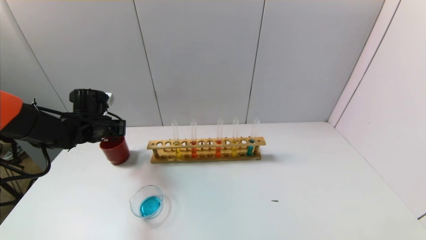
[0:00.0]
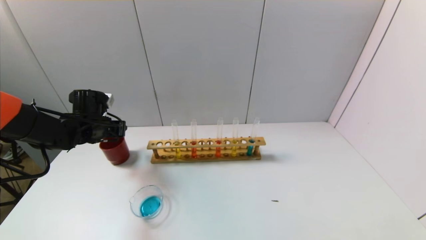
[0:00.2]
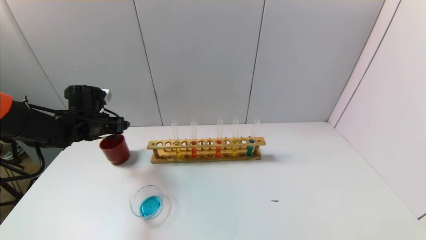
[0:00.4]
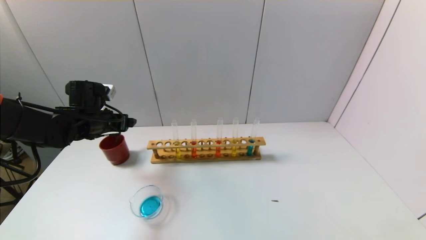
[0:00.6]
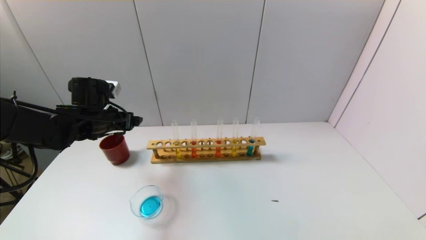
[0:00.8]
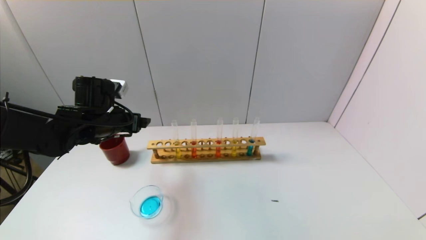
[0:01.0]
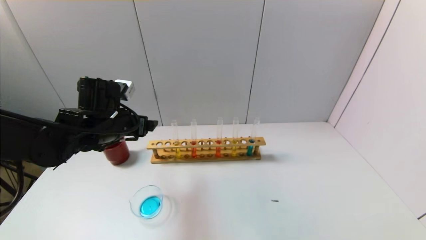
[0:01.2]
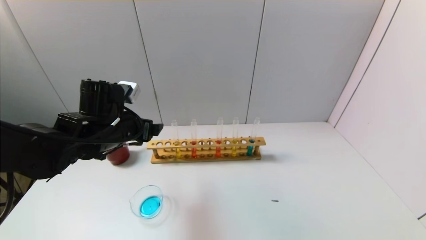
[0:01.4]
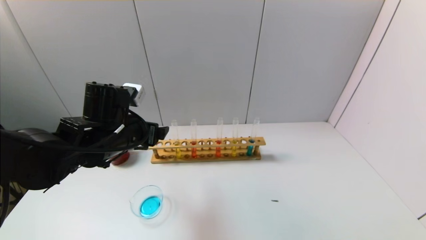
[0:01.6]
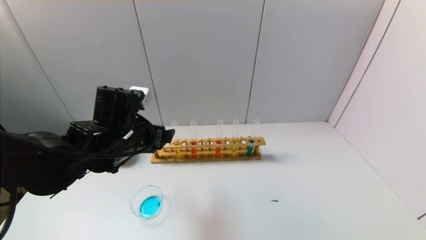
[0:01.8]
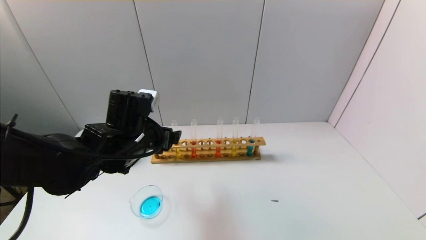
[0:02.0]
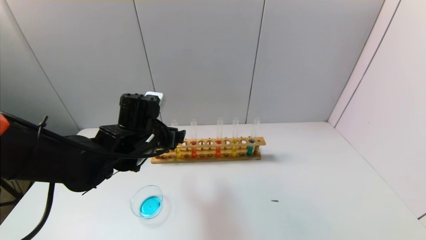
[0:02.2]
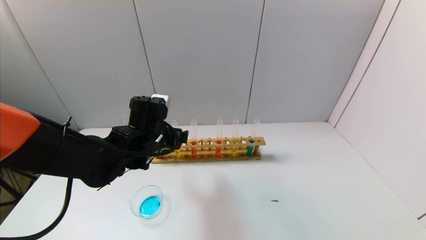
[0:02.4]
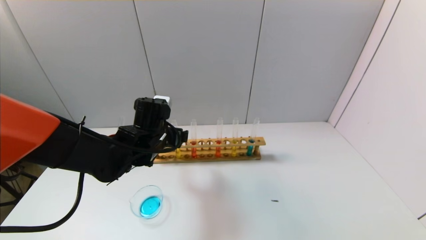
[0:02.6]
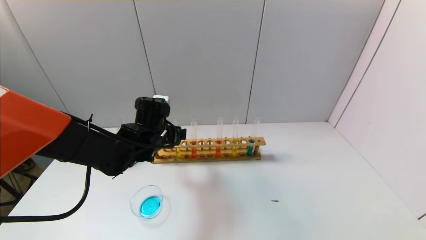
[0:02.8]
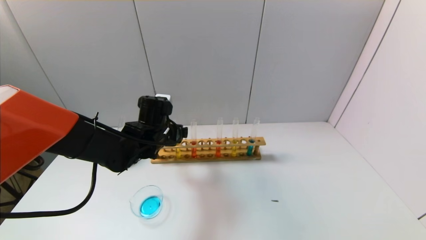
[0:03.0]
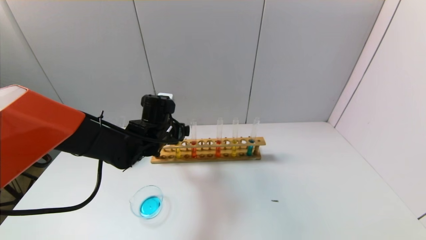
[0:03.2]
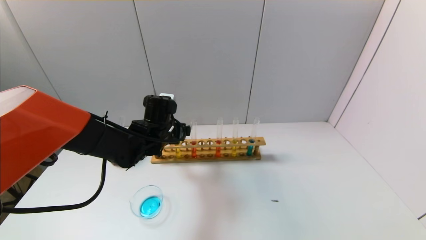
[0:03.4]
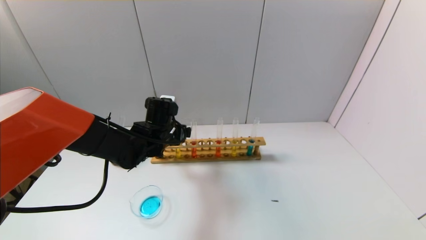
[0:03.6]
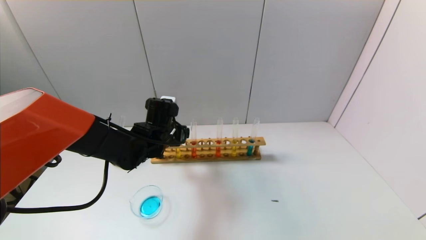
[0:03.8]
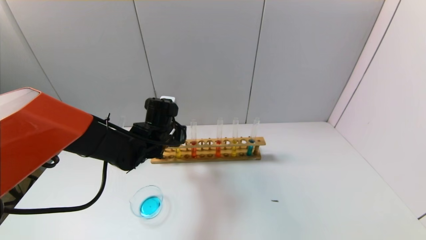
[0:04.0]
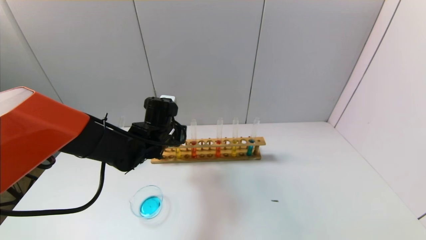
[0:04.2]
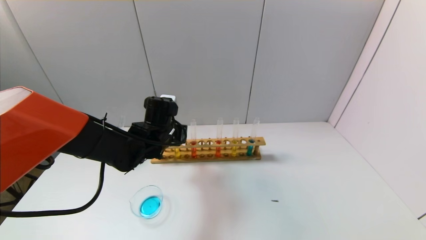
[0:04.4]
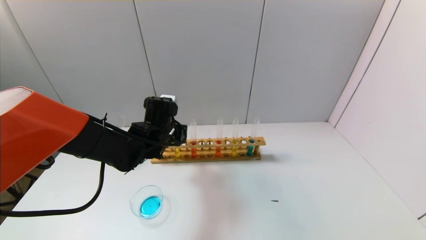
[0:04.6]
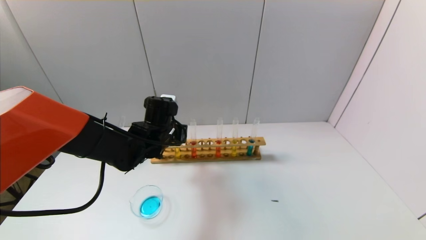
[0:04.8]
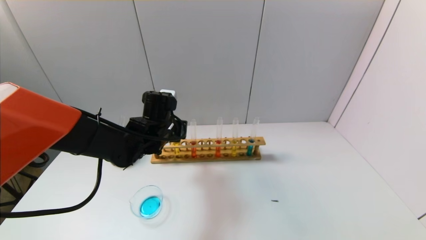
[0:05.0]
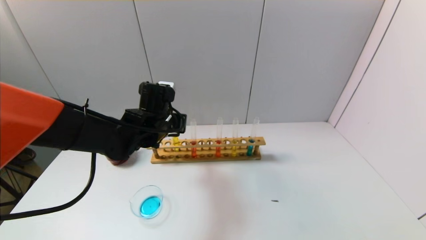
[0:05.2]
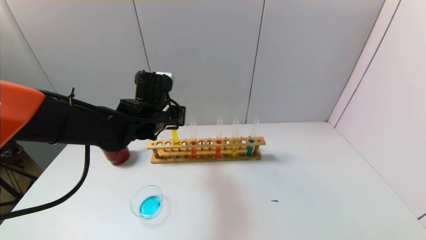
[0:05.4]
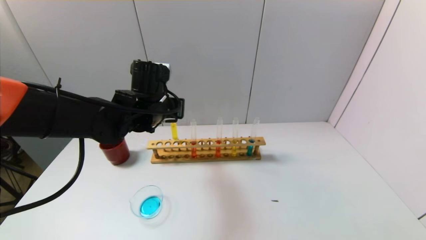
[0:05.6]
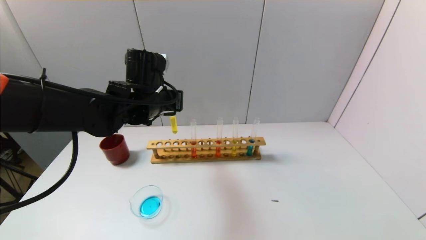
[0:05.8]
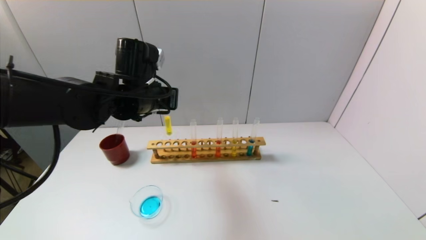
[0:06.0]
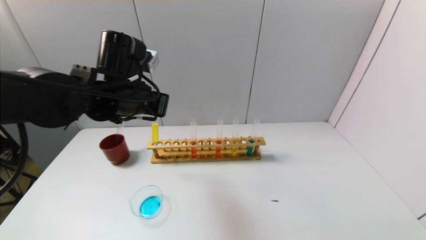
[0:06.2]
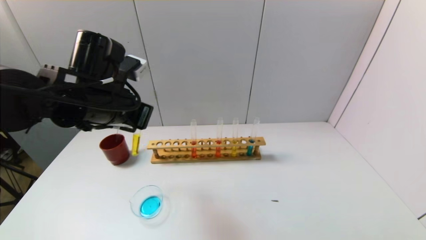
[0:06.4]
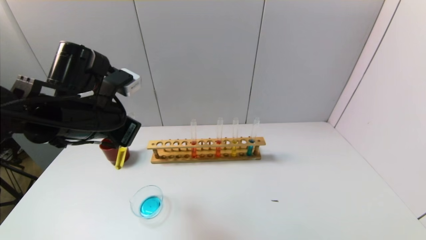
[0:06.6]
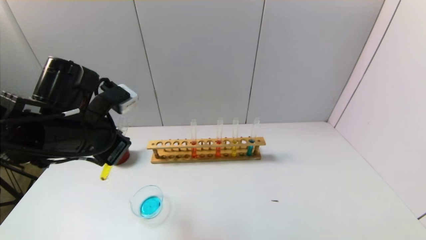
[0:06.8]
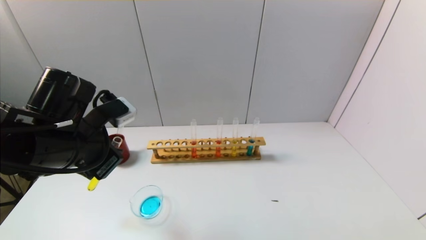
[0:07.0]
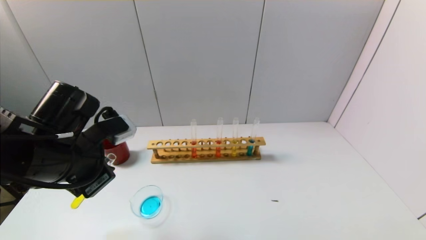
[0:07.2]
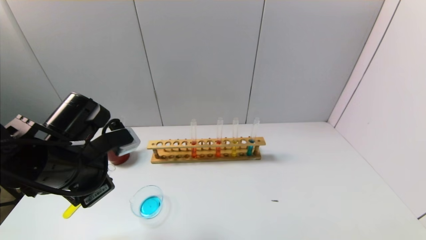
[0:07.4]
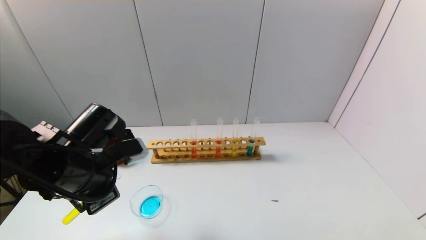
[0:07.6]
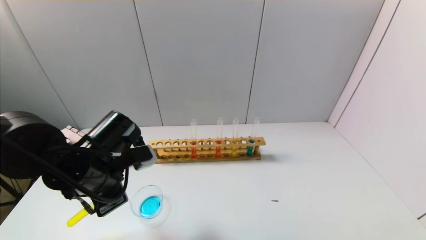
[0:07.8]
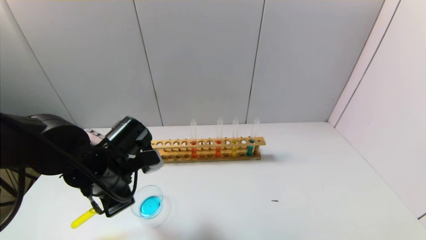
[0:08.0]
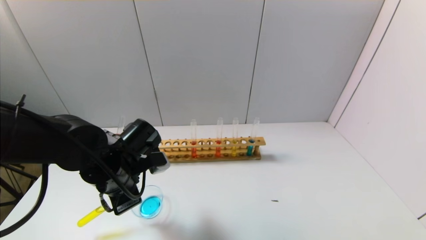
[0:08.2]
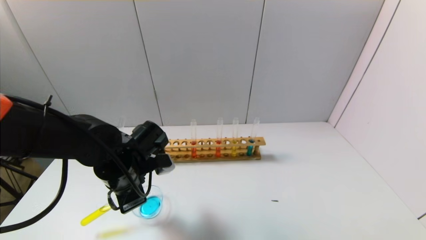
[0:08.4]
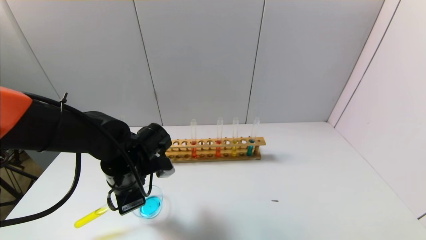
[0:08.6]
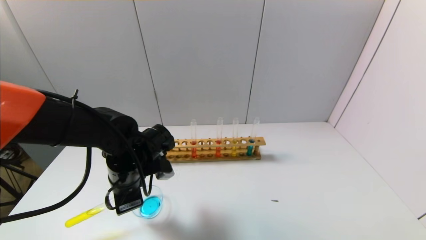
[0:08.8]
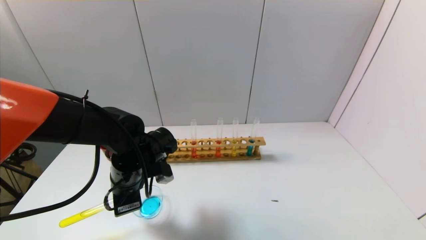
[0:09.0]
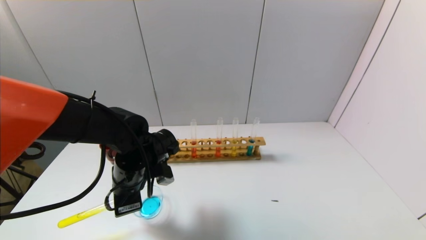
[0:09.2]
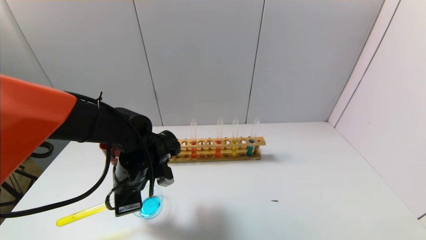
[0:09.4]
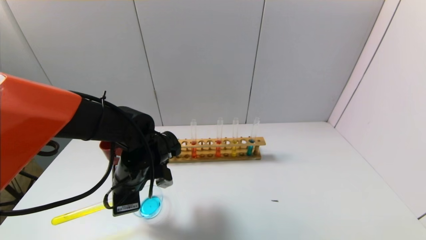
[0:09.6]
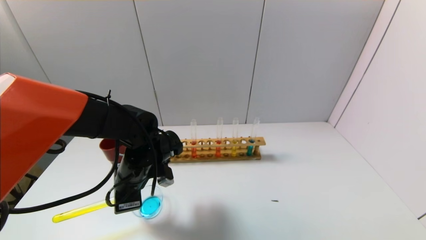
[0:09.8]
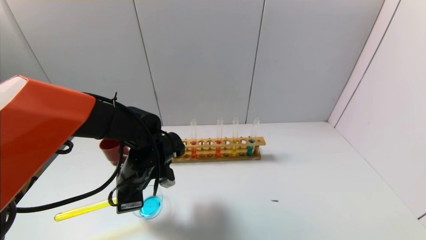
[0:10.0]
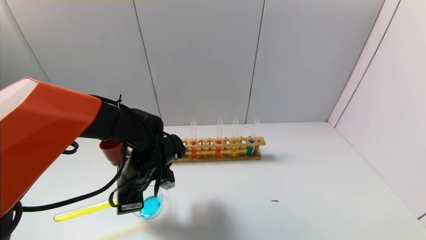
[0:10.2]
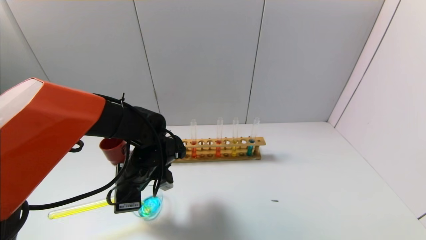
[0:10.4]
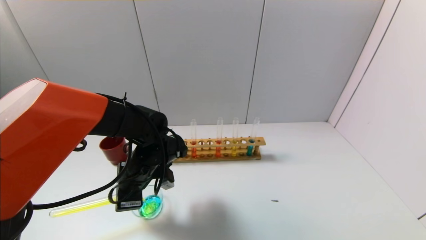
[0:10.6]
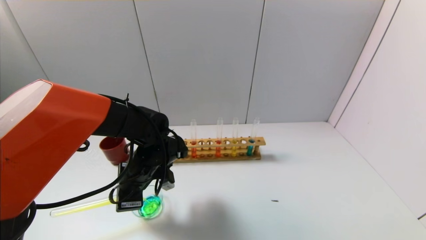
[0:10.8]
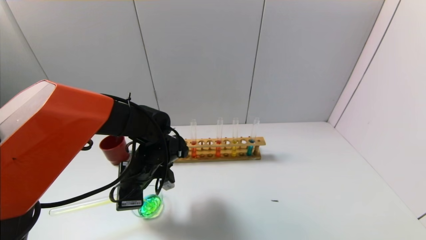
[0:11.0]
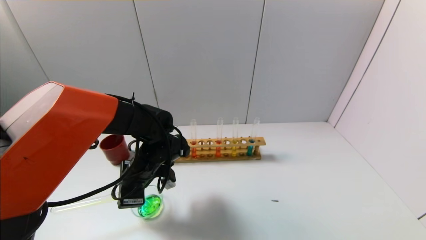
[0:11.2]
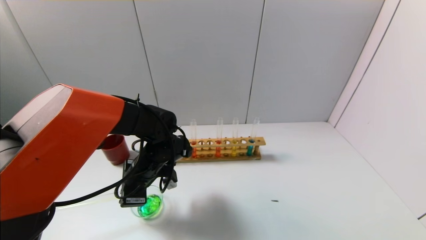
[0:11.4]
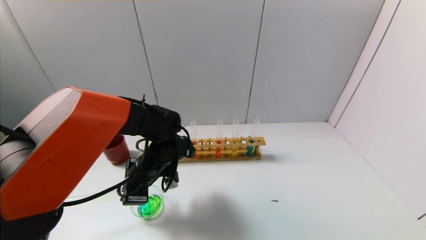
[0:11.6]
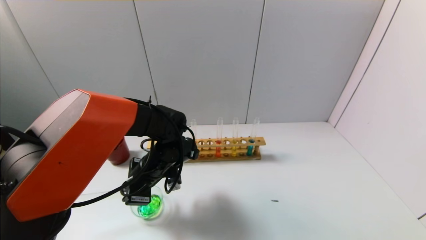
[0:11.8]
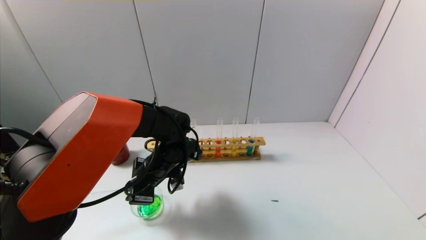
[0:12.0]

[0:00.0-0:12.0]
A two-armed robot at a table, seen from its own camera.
Task of the whole recording: pick up the test tube with yellow pigment and the test tube with blue pigment by grippers and pour them into the beaker.
Step, 0:00.6 to 0:04.8: Grasp the yellow reagent with the left gripper.
0:00.0 to 0:01.6: The left gripper is displaced to the right, backward and upward by approximately 20 cm, and opens up.
0:01.6 to 0:03.0: The left gripper is displaced forward and downward by roughly 10 cm.
0:03.0 to 0:04.4: The left gripper closes.
0:04.4 to 0:06.0: The left gripper is displaced upward by about 10 cm.
0:06.0 to 0:07.6: The left gripper is displaced backward, to the left and downward by approximately 15 cm.
0:07.6 to 0:09.0: The left gripper moves downward and forward, about 10 cm.
0:09.0 to 0:10.4: The grippers make only small movements.

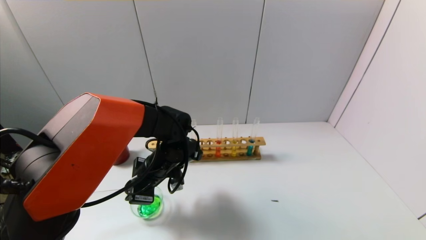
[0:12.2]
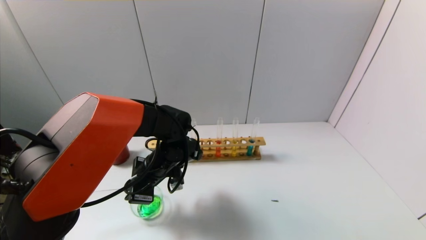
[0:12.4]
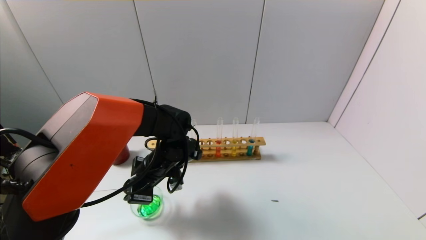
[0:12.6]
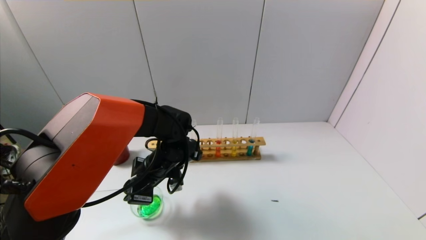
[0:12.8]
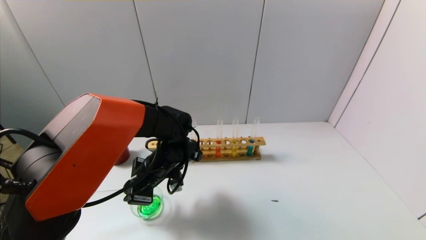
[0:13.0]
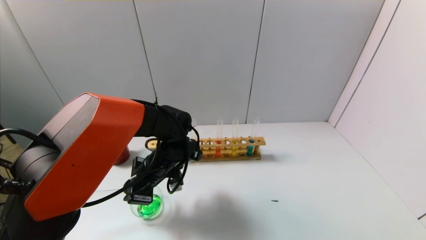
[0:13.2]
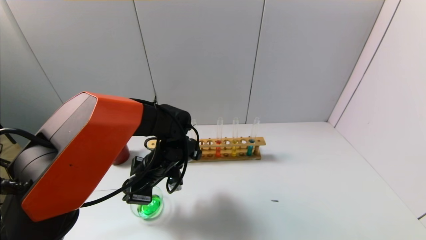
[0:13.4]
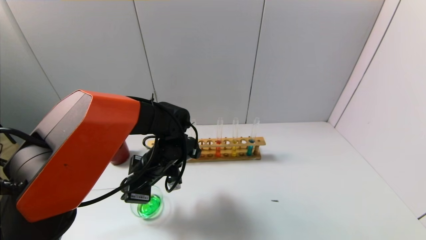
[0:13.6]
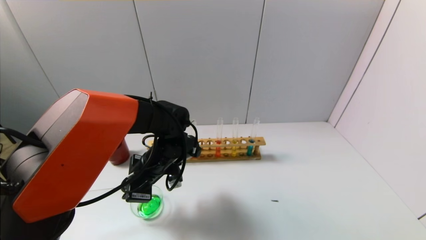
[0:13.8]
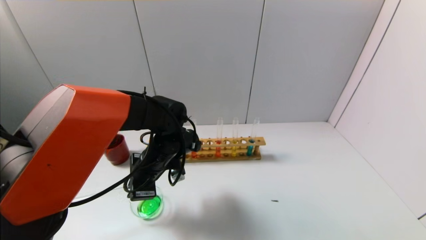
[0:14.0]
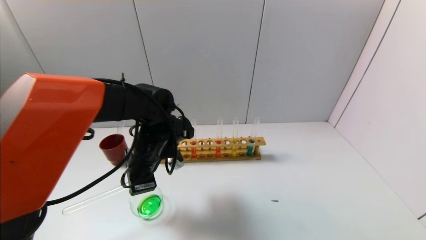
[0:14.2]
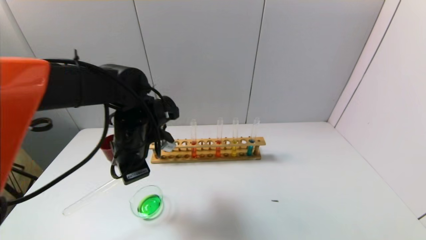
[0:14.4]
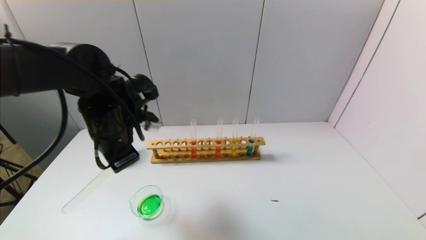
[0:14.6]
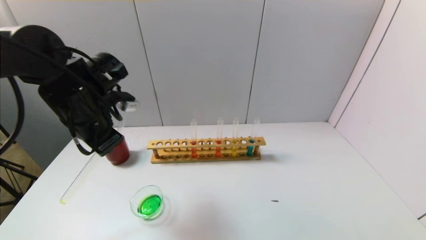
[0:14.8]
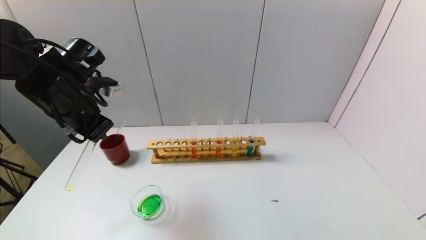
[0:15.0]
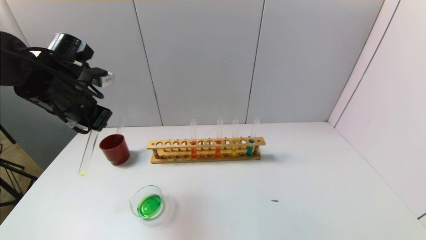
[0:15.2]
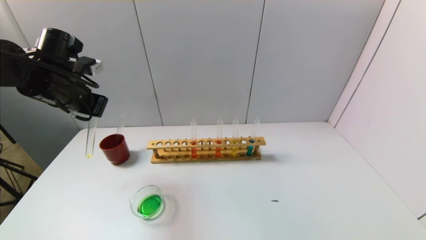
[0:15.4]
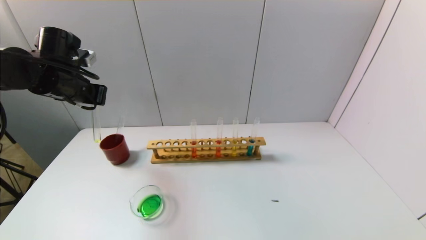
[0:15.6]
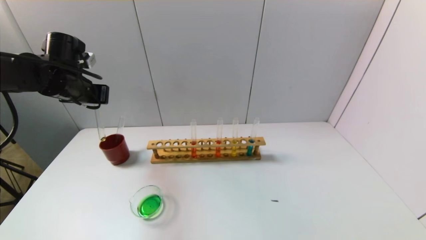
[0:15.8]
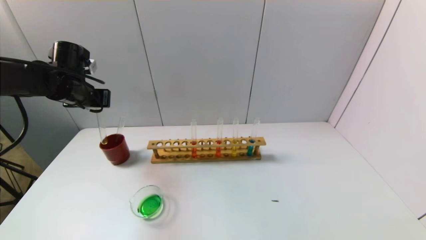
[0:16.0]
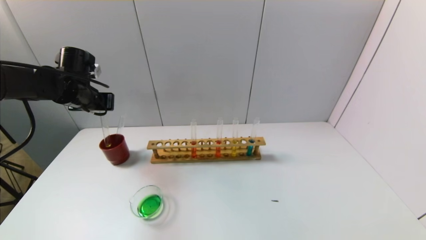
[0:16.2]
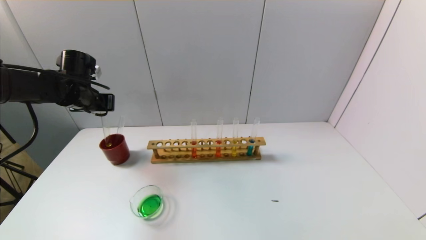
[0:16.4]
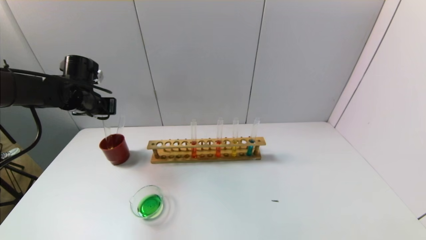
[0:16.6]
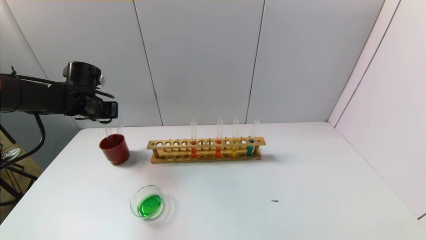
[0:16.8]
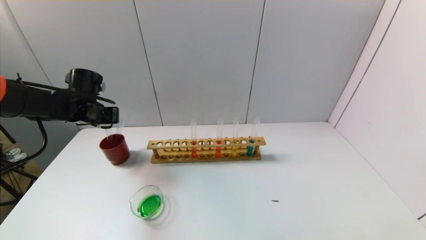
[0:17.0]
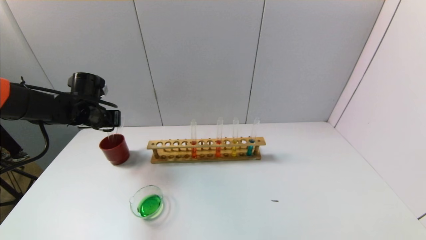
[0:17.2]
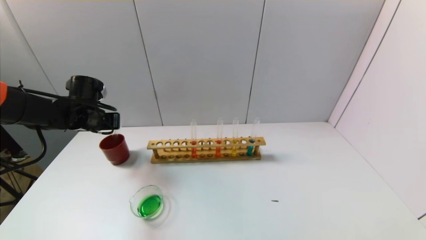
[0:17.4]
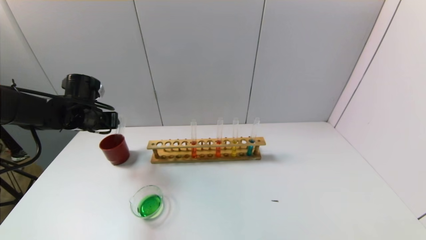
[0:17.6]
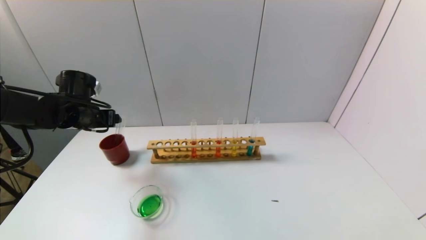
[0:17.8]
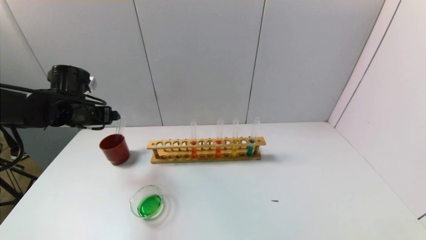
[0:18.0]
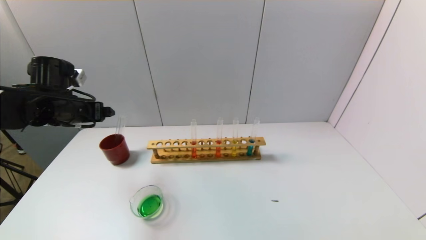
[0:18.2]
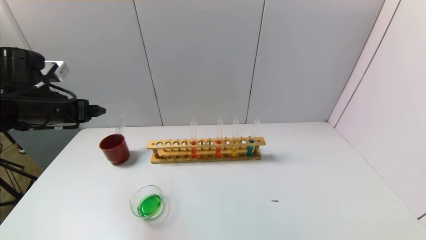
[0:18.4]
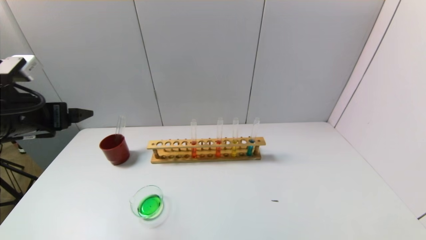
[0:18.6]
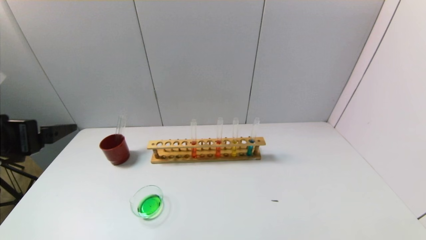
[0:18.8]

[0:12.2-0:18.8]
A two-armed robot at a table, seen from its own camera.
Task of the whole recording: pick up the test tube with yellow pigment and the test tube with blue pigment by grippers and pour them into the beaker.
Step, 0:14.2 to 0:17.8: Place the test tube into the brown cup with the left gripper.
0:12.2 to 0:13.8: Neither gripper changes place.
0:13.8 to 0:15.4: The left gripper heads to the left and upward, covering about 25 cm.
0:15.4 to 0:17.2: The left gripper shifts about 10 cm downward and forward.
0:17.2 to 0:18.8: The left gripper shifts approximately 25 cm backward, and opens.
